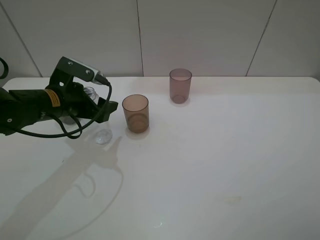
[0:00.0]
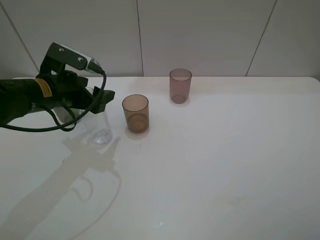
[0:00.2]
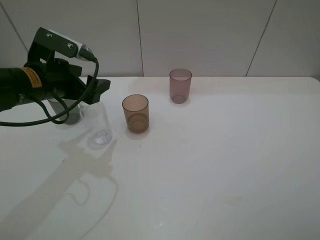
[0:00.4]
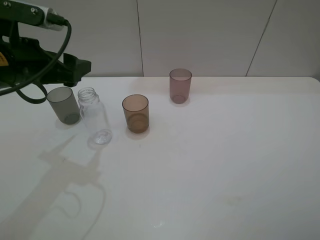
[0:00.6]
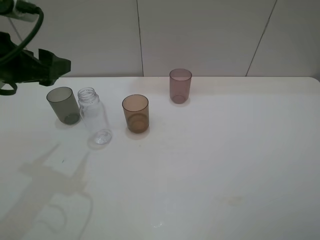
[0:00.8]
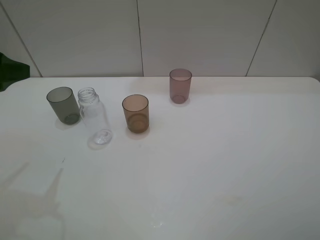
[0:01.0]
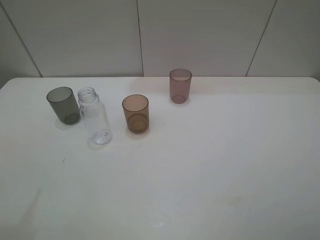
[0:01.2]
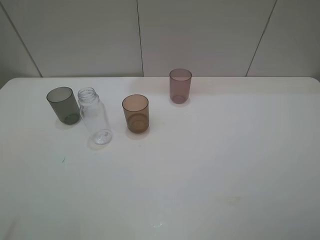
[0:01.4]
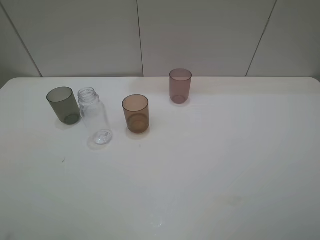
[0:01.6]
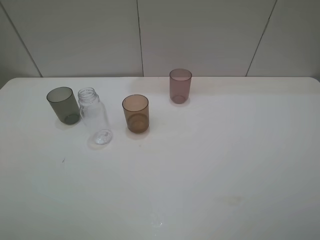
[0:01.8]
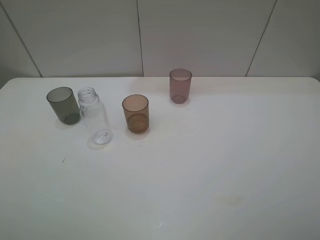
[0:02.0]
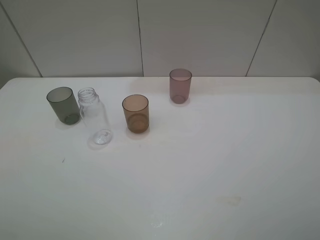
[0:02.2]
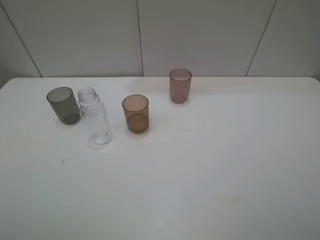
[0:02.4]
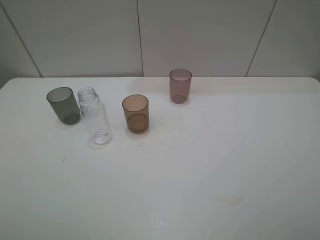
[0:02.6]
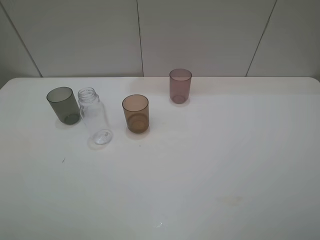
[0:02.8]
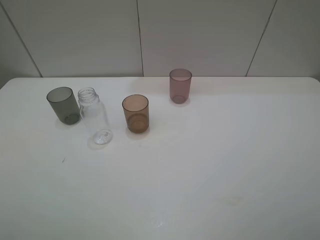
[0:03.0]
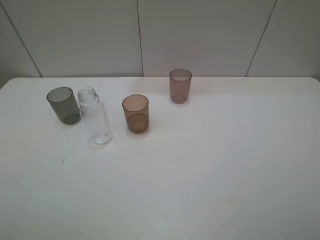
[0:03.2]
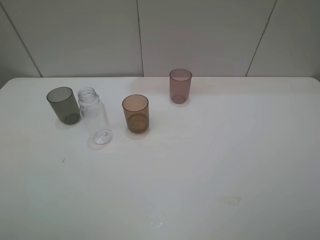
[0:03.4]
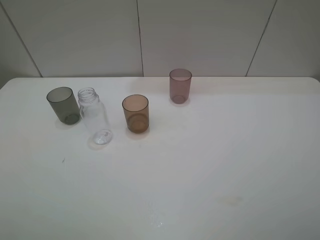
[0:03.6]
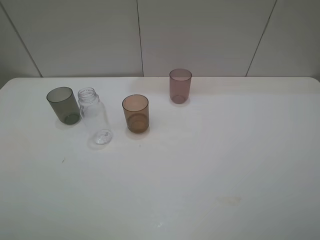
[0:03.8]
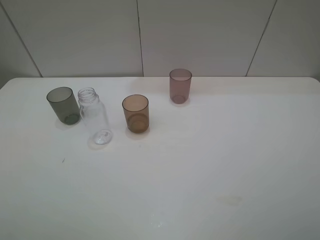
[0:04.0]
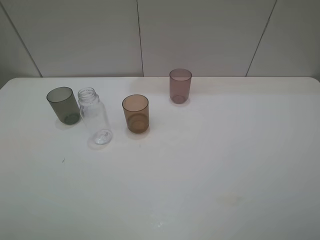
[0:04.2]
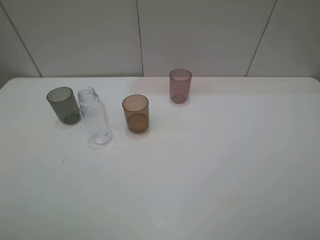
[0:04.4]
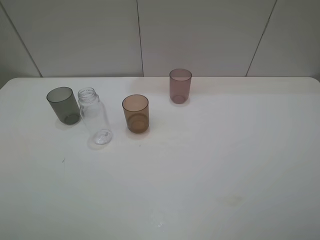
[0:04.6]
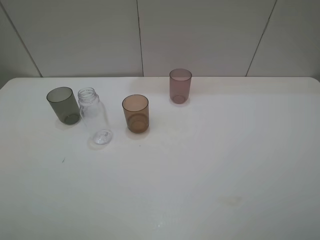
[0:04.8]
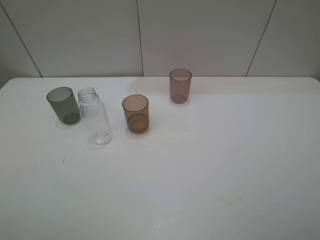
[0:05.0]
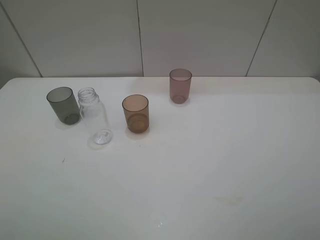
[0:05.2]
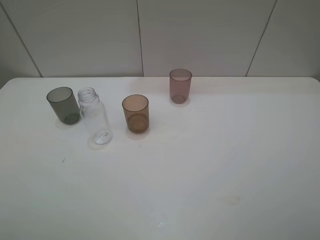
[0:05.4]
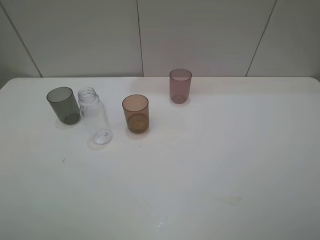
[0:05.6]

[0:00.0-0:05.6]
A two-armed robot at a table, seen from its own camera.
Task of the whole recording: pick up the bottle filled with water and pour water into the middle cup of the three cups.
0:00.0 to 0:01.4: The left gripper moves backward, upward and to the left, about 30 cm.
0:02.8 to 0:05.6: Both grippers stay about where they are.

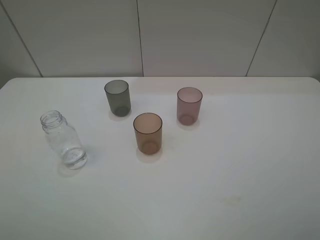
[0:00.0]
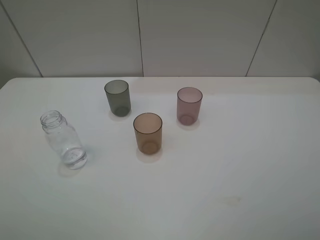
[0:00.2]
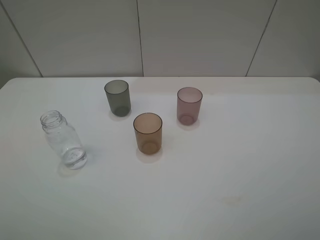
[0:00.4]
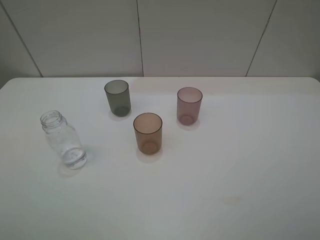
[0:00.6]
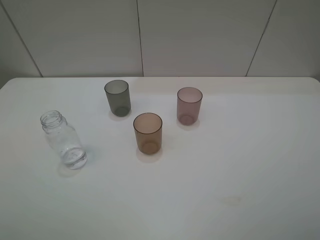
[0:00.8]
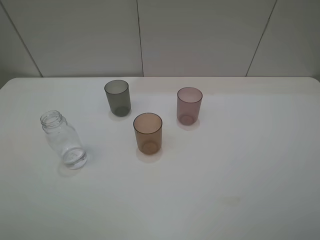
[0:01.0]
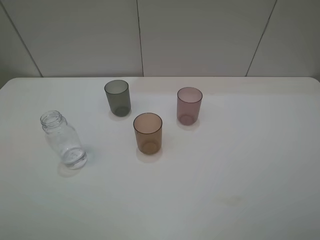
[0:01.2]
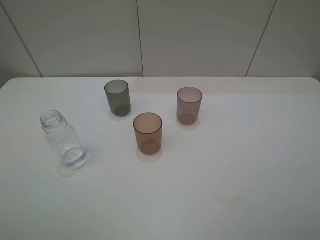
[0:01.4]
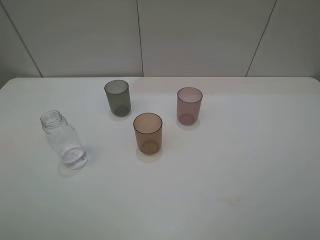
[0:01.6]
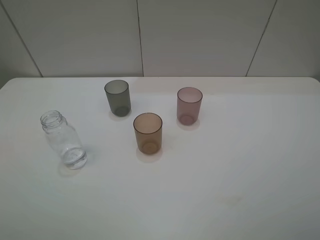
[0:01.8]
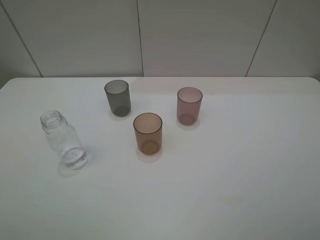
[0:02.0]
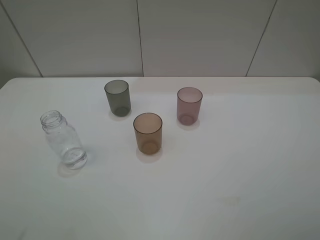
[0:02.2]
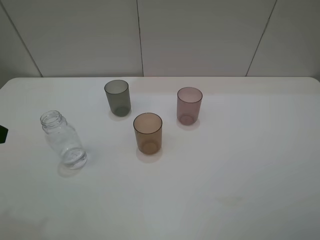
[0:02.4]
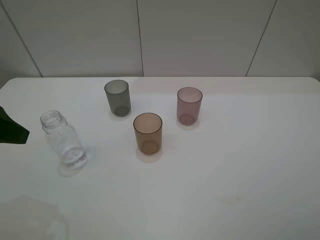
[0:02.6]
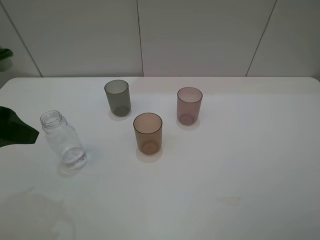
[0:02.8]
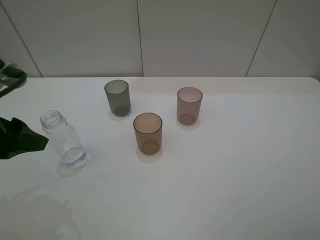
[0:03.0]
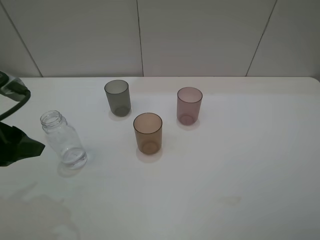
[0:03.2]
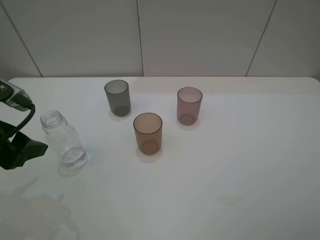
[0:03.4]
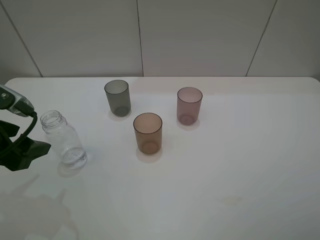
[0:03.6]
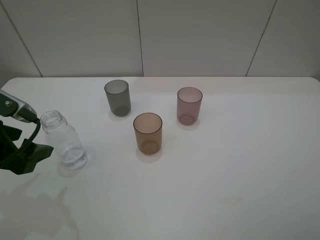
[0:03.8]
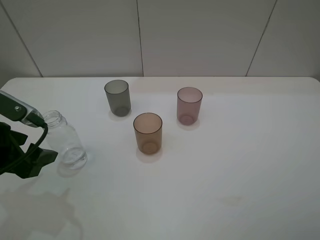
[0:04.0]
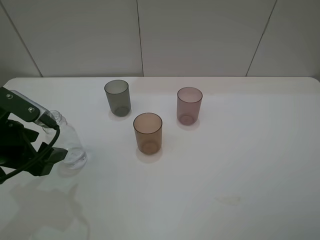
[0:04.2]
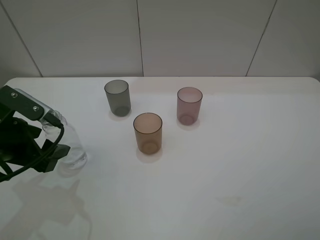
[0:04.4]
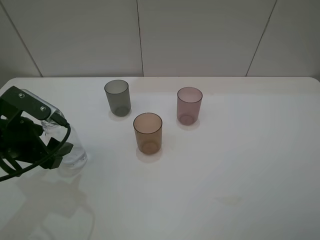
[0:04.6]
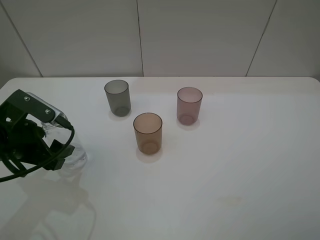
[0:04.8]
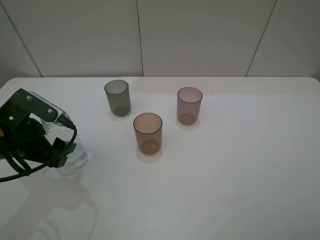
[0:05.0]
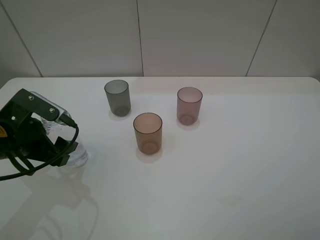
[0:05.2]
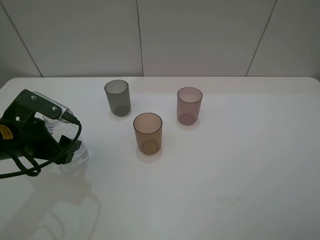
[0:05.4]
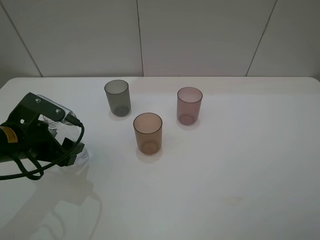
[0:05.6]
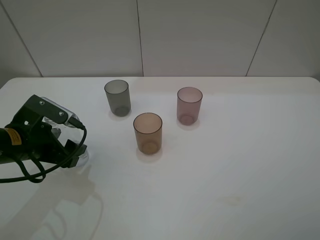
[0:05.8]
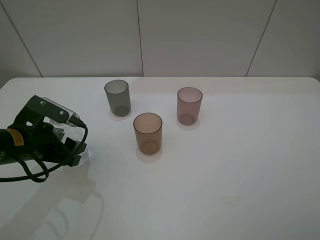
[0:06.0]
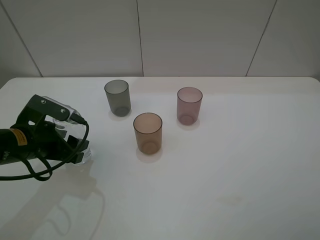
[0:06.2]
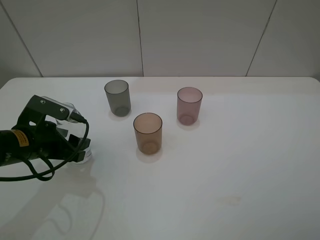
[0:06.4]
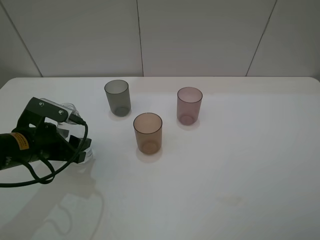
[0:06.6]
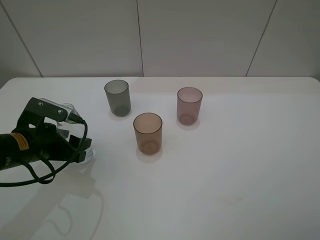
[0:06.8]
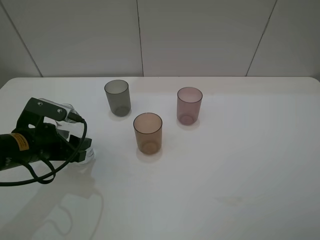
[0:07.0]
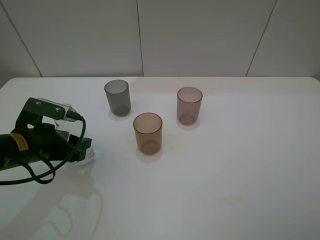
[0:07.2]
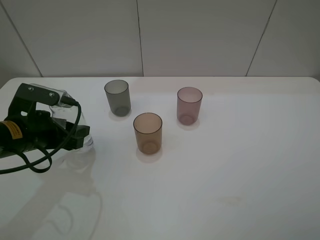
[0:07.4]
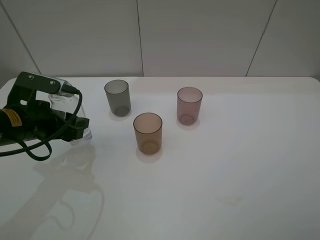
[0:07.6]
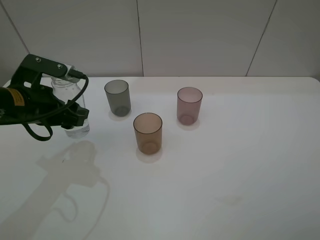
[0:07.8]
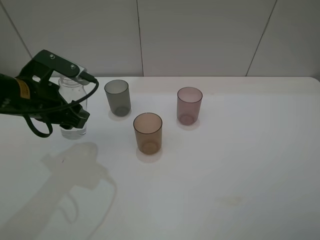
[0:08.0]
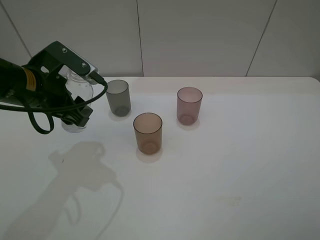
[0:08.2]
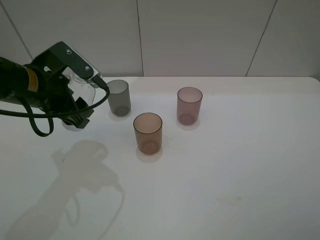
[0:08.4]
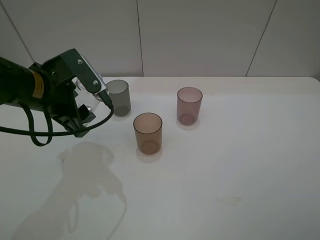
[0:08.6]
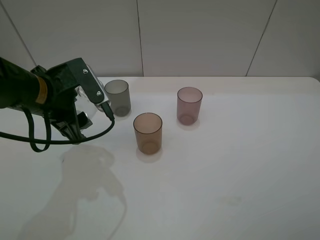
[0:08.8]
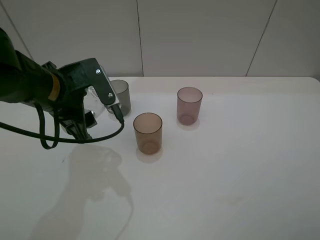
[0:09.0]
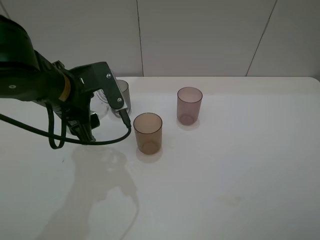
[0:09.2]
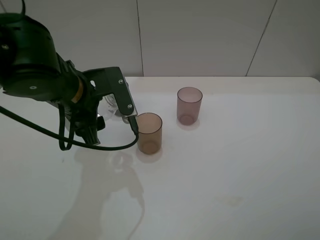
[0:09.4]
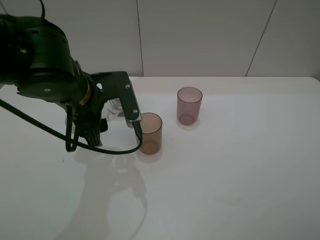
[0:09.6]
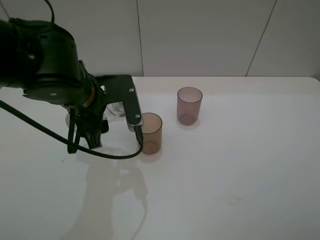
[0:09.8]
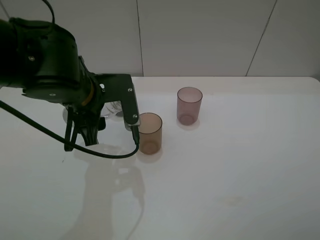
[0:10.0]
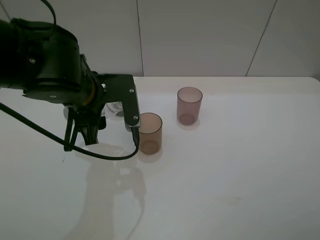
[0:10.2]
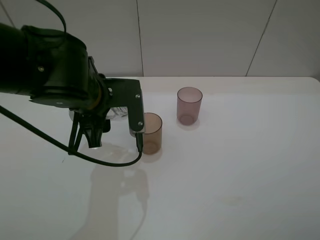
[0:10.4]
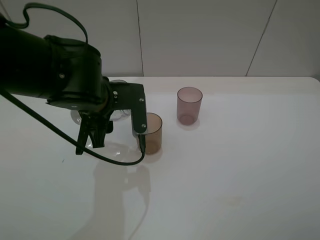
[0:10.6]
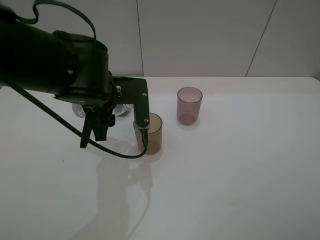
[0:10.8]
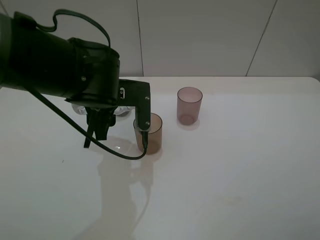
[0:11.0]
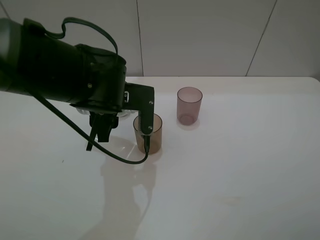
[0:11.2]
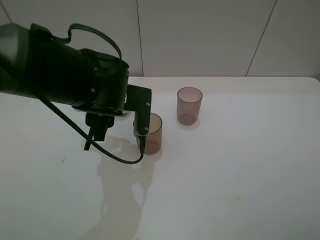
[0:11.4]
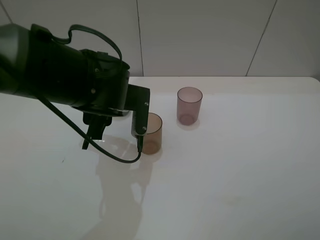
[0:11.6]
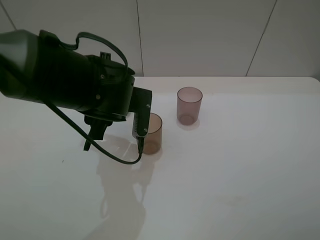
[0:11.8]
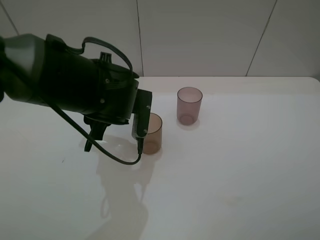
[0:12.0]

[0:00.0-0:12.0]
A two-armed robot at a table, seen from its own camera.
Task of the whole recording: pick up the bottle filled with water and pour water into the middle cup of the three cups.
Step, 0:00.0 to 0:07.0: Grasp the transparent bottle with the left gripper.
0:00.0 to 0:01.6: Neither gripper changes place.
0:01.6 to 0:03.0: The left gripper is displaced forward by some 15 cm.
0:03.0 to 0:04.4: The left gripper heads downward, covering some 5 cm.
0:04.4 to 0:06.0: The left gripper shifts by some 5 cm, and closes up.
0:06.0 to 0:07.6: There are only small adjustments of the grippers.
0:07.6 to 0:09.0: The left gripper moves to the right, roughly 10 cm.
0:09.0 to 0:10.4: The left gripper goes roughly 5 cm to the right.

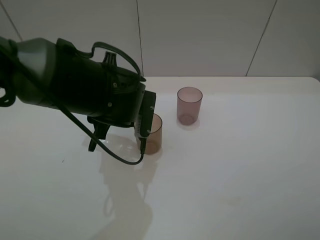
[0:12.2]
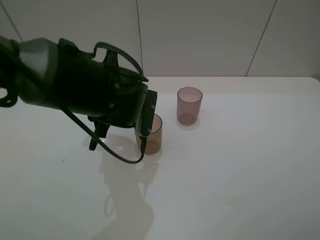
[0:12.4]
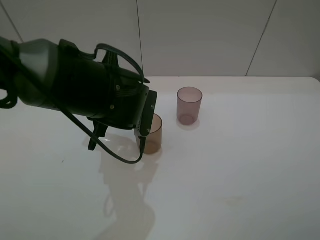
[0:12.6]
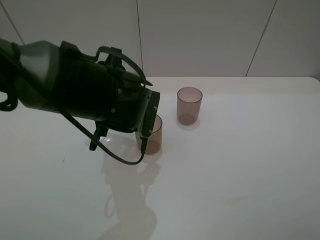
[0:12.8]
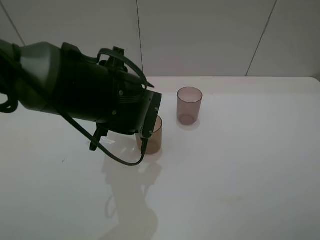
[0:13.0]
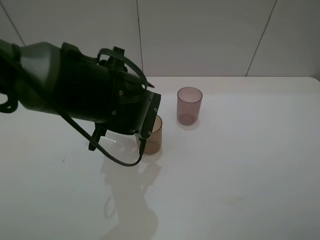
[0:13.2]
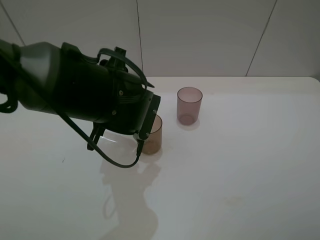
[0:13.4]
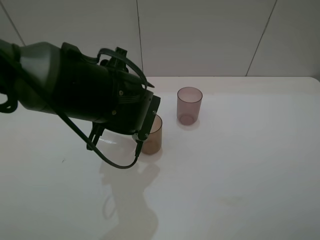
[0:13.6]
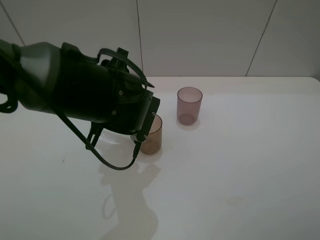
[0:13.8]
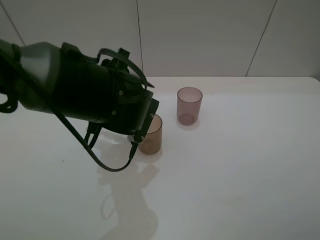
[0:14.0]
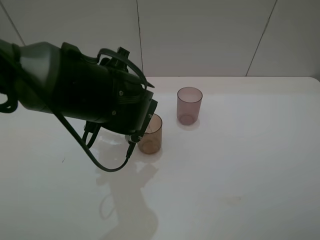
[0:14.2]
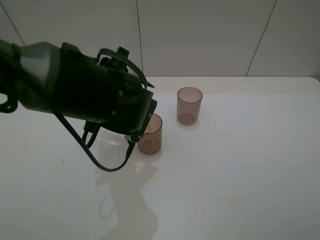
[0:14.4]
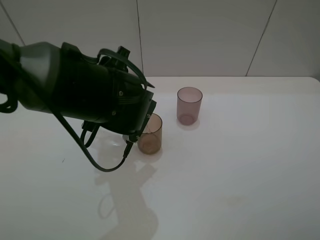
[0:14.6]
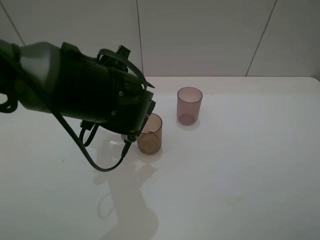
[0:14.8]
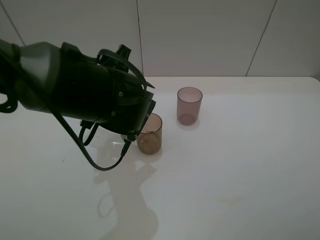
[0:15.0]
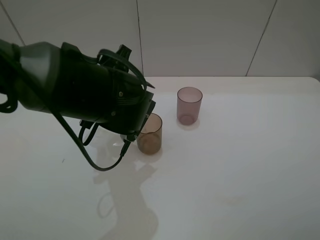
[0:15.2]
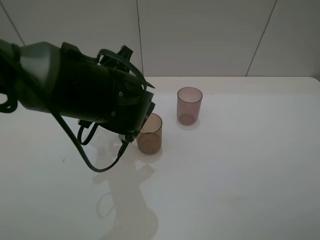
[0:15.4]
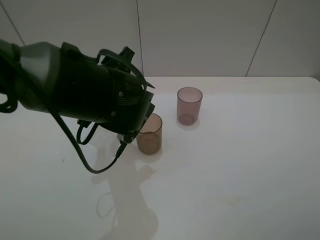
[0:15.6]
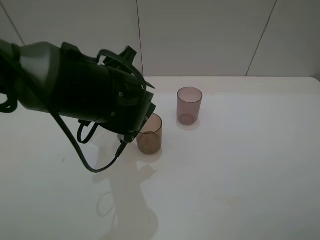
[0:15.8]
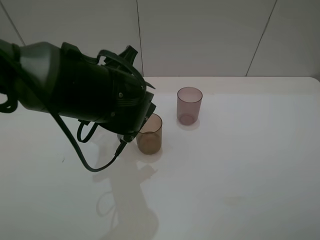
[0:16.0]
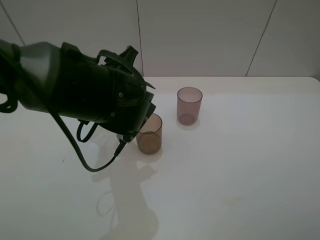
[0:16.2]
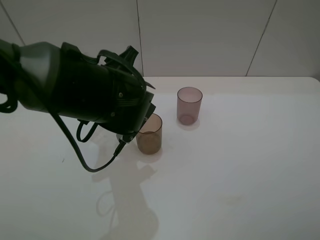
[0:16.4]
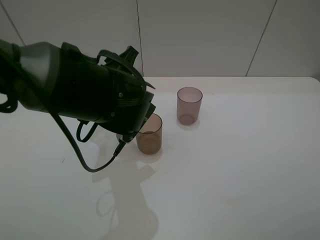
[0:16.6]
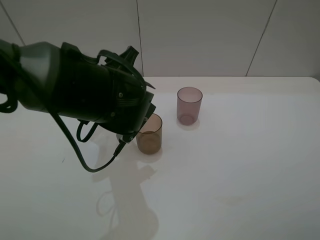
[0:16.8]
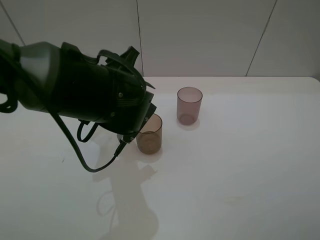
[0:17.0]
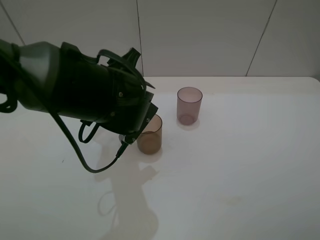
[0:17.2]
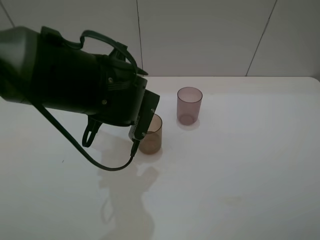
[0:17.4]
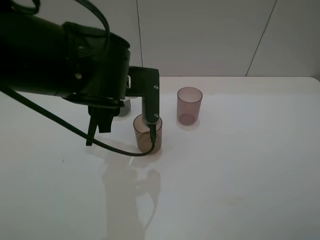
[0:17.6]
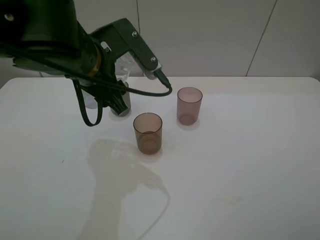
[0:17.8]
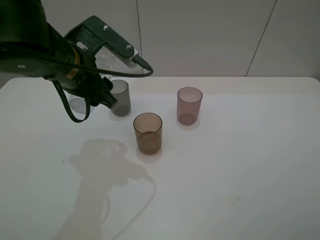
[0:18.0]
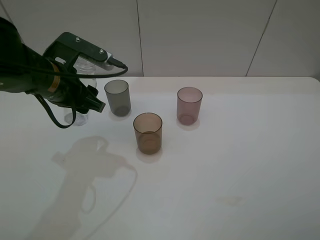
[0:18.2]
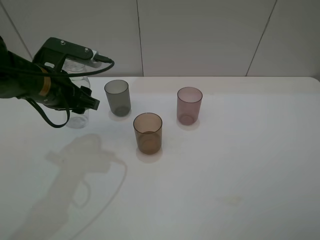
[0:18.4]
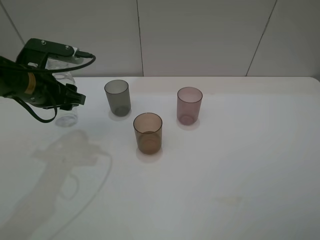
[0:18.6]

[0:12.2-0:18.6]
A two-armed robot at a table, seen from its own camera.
Task of the whole recording: pick up the bottle filled with water and pour water into the middle cup of the three cups.
Step, 0:12.2 to 0:17.6: Pour water from transparent bottle to brown cup with the left gripper.
0:12.2 to 0:13.8: The grippers make only small movements.
0:13.8 to 0:17.0: The grippers move only a little.
0:17.0 to 0:18.6: The left gripper heads to the left, covering roughly 15 cm.
